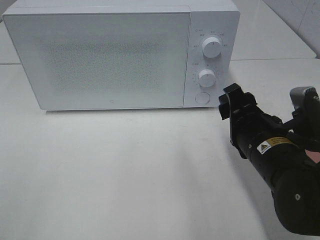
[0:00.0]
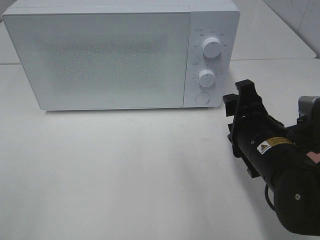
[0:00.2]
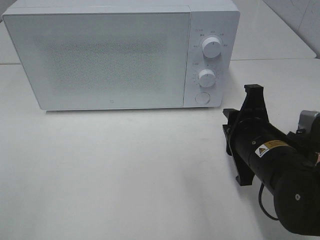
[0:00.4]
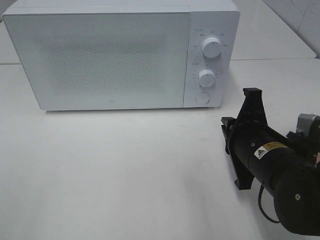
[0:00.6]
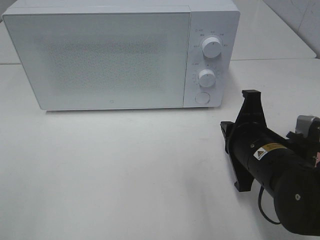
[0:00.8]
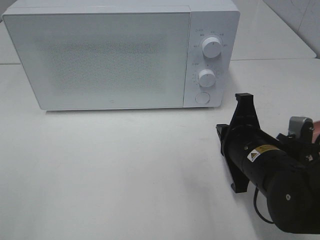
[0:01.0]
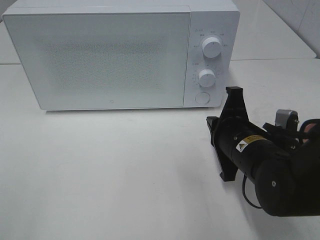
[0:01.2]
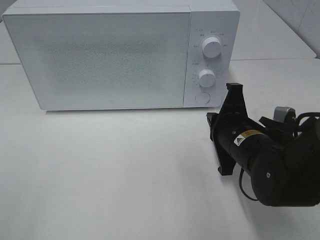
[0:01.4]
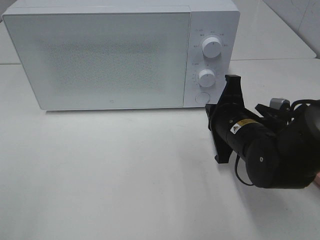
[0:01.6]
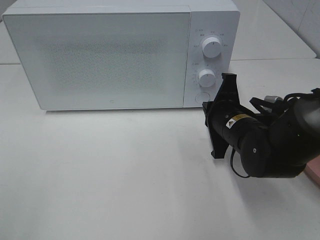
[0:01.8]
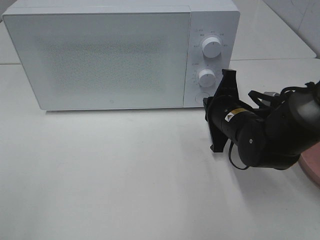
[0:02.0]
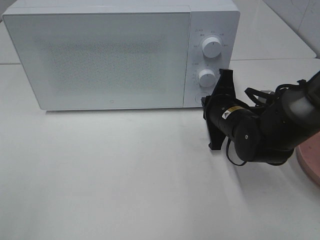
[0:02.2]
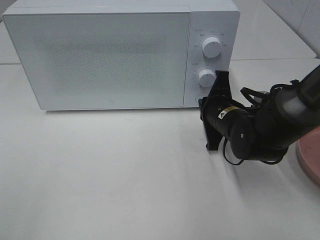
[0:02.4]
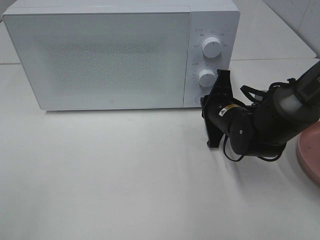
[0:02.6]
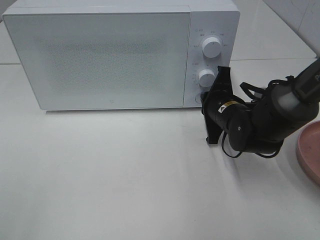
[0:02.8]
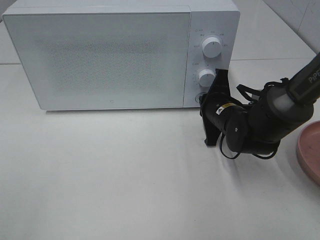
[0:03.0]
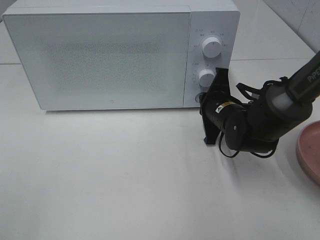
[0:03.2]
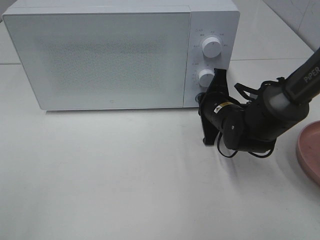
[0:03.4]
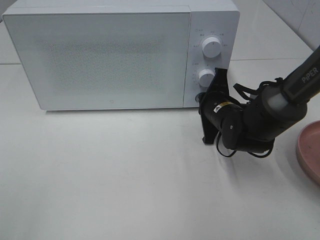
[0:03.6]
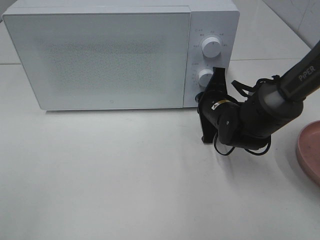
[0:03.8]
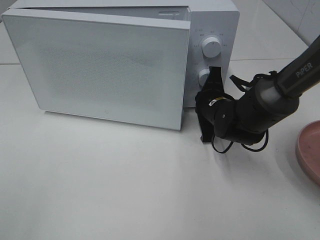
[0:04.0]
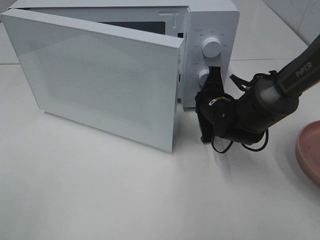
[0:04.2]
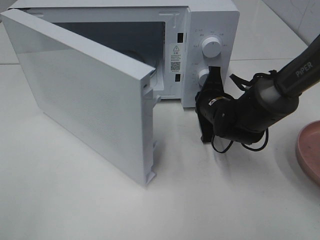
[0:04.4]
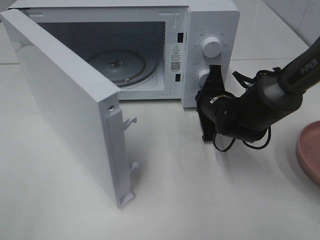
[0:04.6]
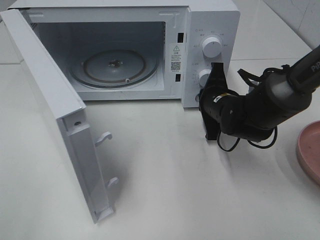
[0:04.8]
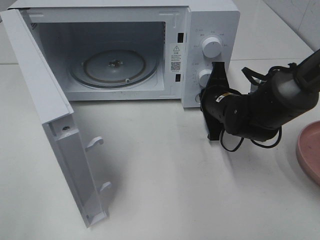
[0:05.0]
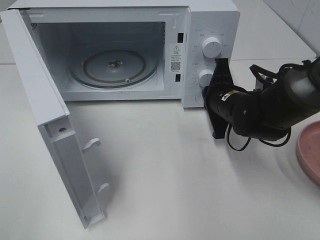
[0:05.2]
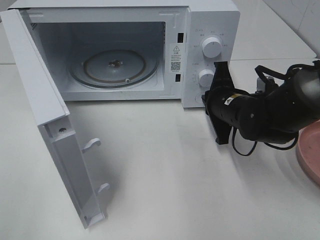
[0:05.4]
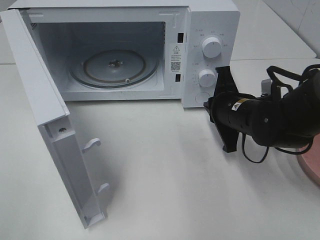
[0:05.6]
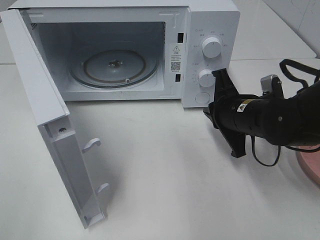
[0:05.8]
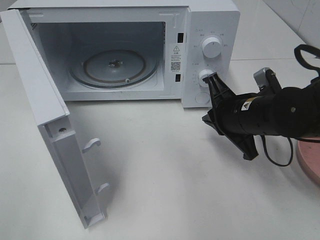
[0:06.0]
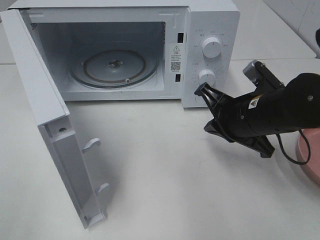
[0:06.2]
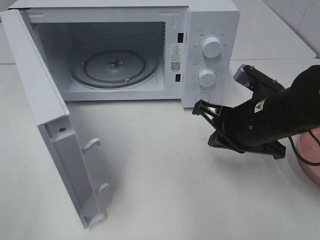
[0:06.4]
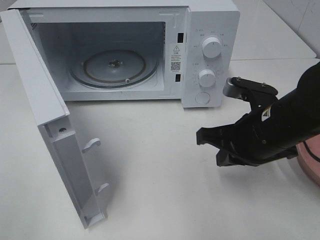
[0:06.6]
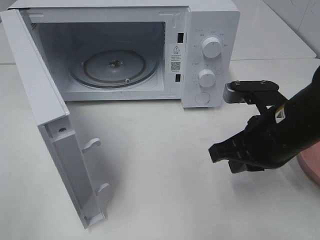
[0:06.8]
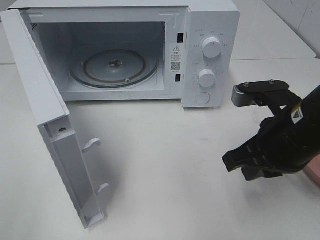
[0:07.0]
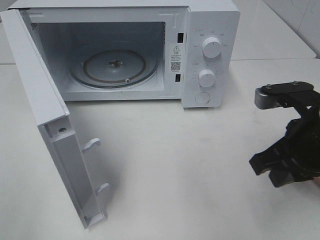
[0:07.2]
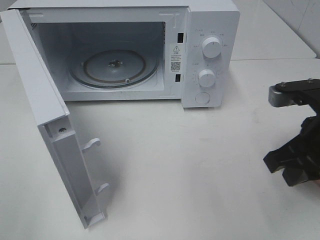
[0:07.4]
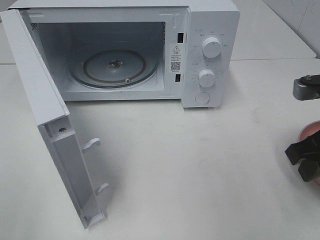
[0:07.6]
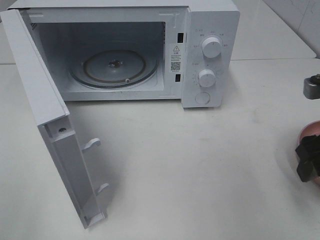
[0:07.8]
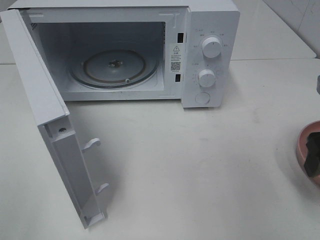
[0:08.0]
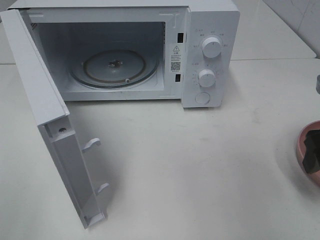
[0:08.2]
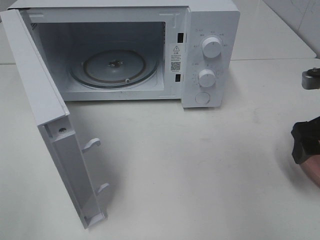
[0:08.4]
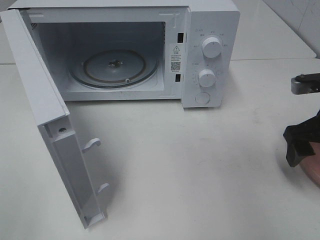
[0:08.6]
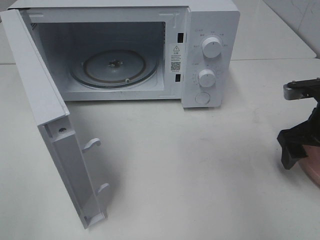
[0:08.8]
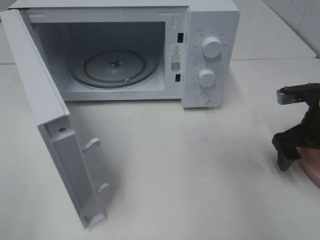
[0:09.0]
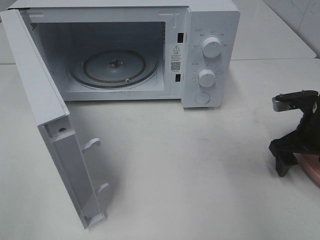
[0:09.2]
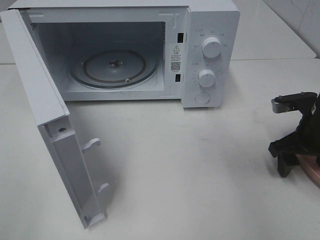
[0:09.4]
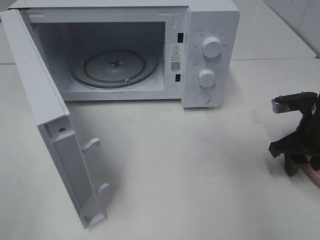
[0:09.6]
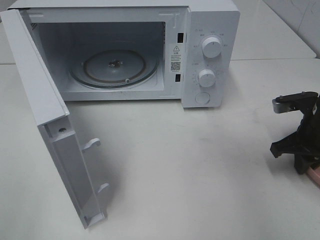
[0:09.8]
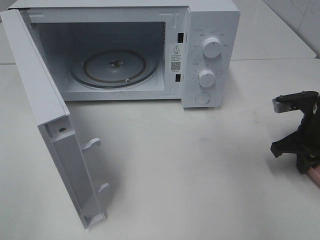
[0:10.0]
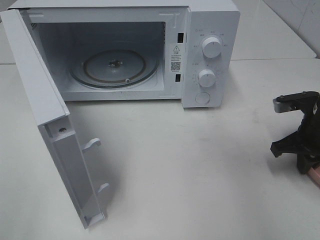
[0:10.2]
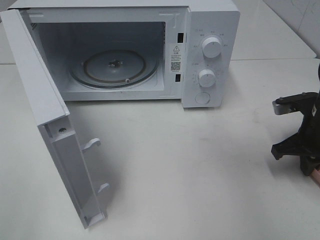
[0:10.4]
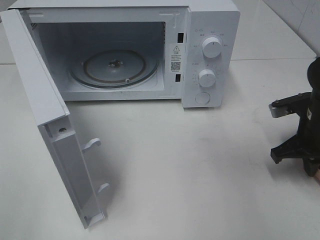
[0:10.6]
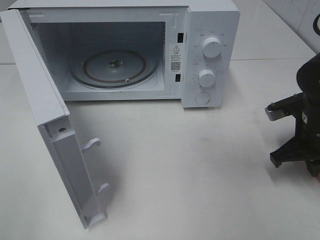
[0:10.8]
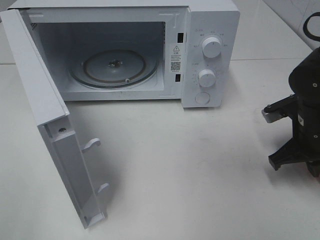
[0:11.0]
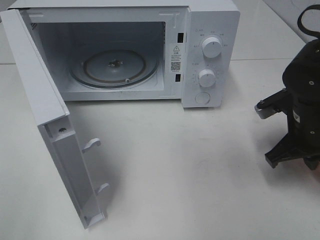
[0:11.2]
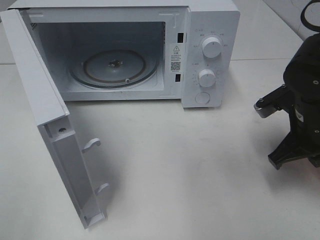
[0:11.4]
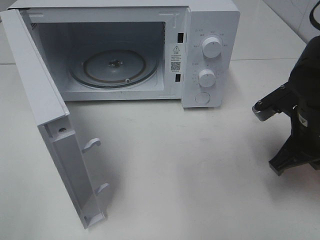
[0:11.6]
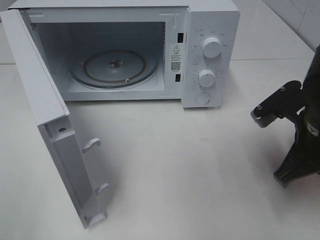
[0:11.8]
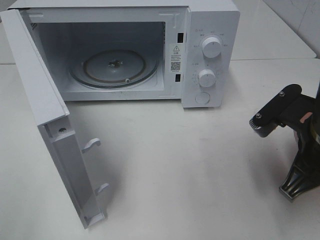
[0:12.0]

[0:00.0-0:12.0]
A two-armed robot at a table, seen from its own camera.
Task of the whole recording: Heat the burger.
Step, 0:00.0 to 0:05.2: Right hand: press the switch.
Step, 0:05.4 to 0:10.6: Right hand: grab the plate with the hamburger.
0:00.0 to 0:01.6: The right gripper shifts roughly 5 cm forward, and closes.
0:01.6 to 0:03.0: The right gripper is displaced forward by some 10 cm.
0:04.4 to 0:06.0: The right gripper heads backward and upward, covering approximately 10 cm.
0:06.0 to 0:07.6: The right gripper heads to the right, backward and upward, covering about 15 cm, and opens its fingers.
0:07.6 to 0:09.0: The right gripper moves forward and downward, approximately 10 cm, and opens.
0:09.0 to 0:10.4: The right gripper closes.
0:10.4 to 0:12.0: The right gripper heads backward, to the left and upward, covering approximately 15 cm.

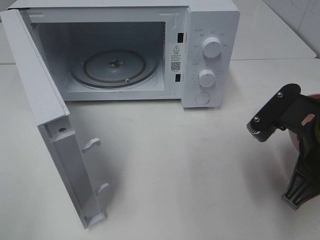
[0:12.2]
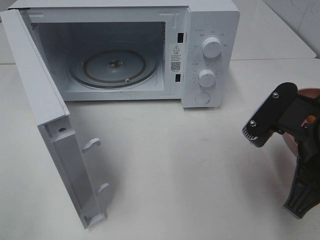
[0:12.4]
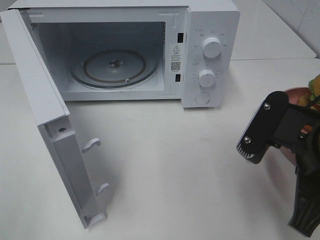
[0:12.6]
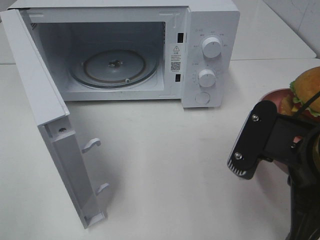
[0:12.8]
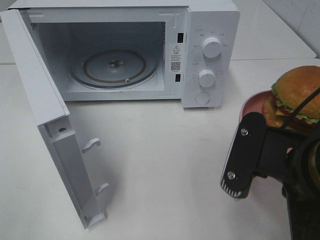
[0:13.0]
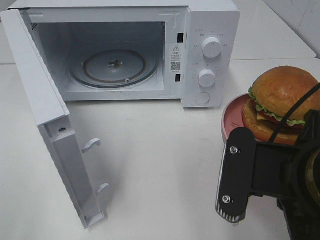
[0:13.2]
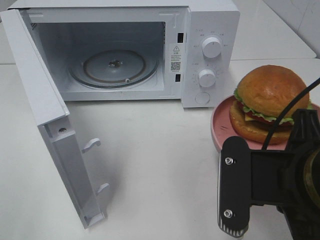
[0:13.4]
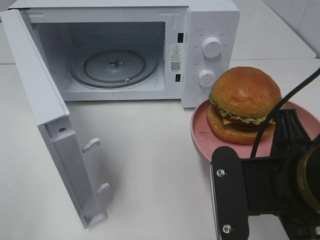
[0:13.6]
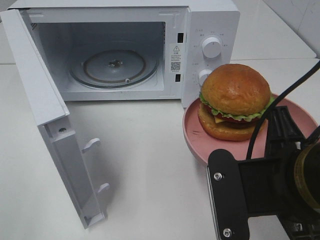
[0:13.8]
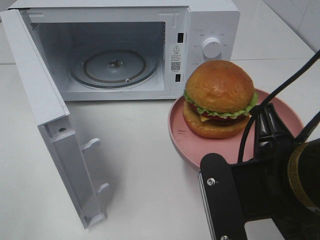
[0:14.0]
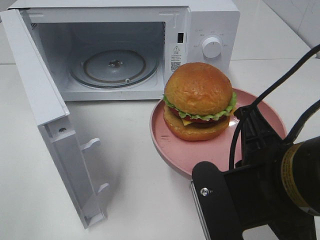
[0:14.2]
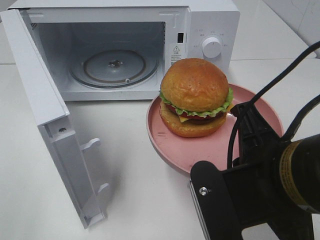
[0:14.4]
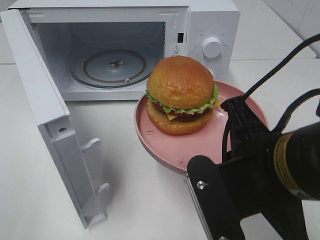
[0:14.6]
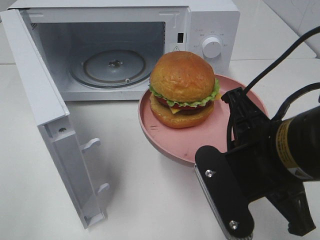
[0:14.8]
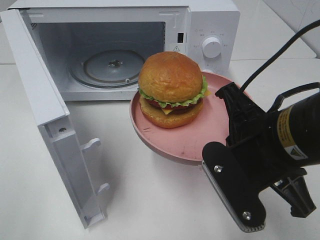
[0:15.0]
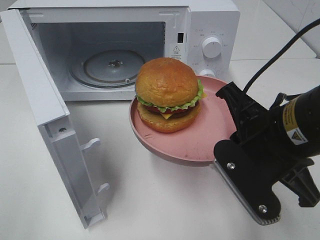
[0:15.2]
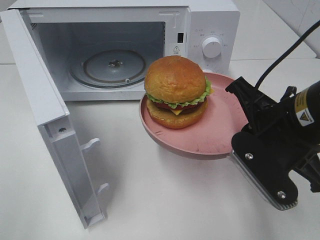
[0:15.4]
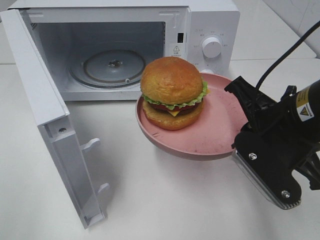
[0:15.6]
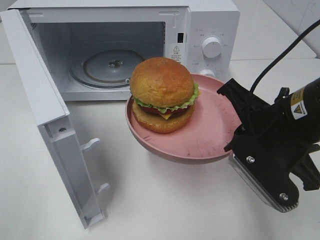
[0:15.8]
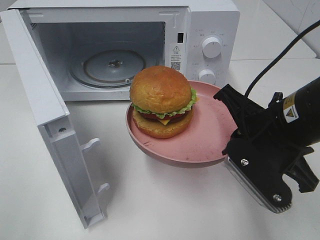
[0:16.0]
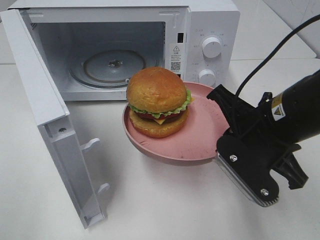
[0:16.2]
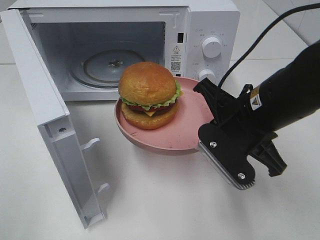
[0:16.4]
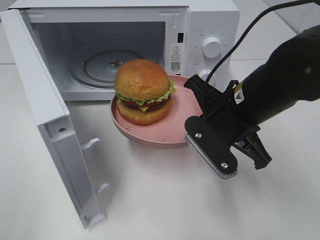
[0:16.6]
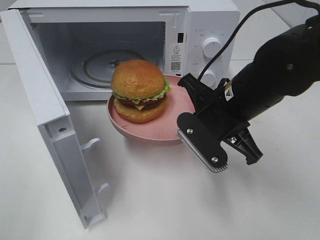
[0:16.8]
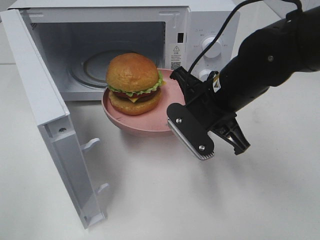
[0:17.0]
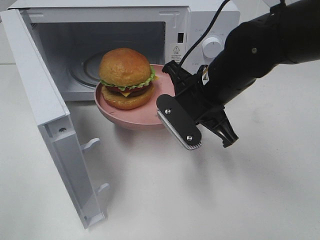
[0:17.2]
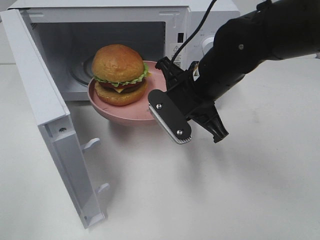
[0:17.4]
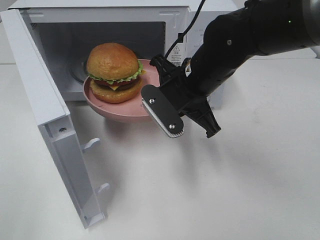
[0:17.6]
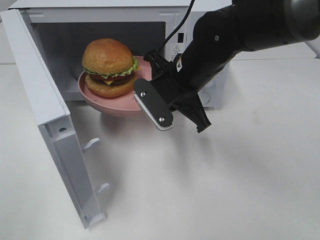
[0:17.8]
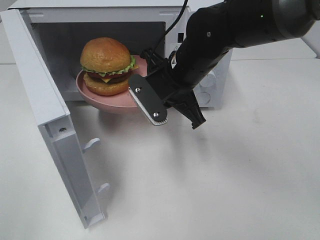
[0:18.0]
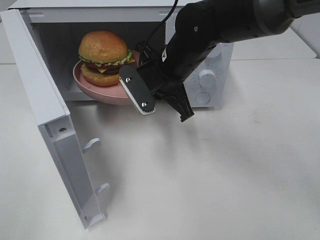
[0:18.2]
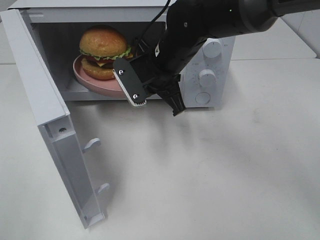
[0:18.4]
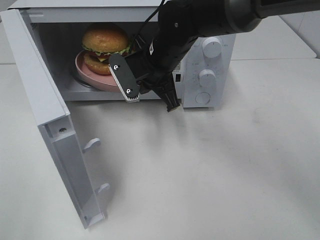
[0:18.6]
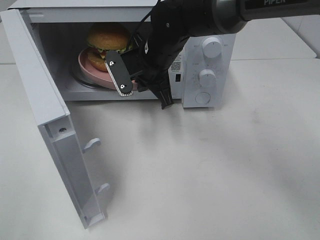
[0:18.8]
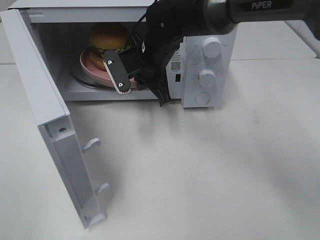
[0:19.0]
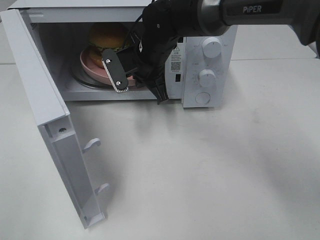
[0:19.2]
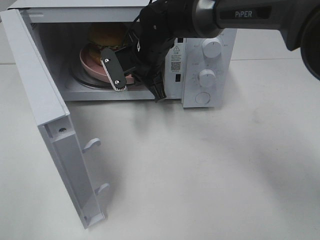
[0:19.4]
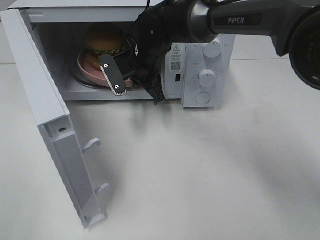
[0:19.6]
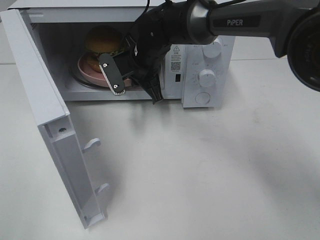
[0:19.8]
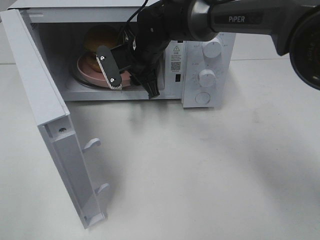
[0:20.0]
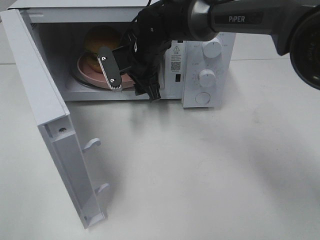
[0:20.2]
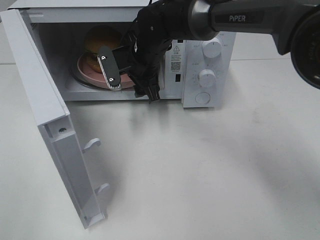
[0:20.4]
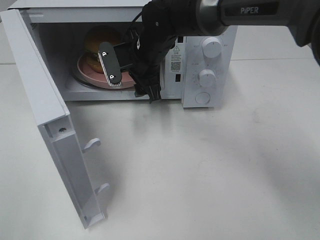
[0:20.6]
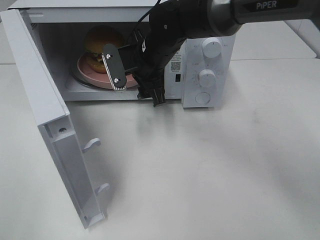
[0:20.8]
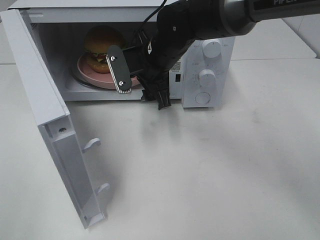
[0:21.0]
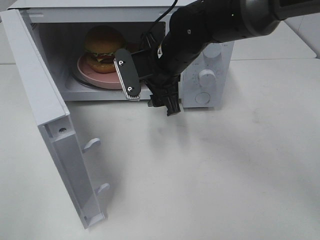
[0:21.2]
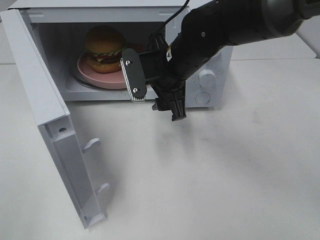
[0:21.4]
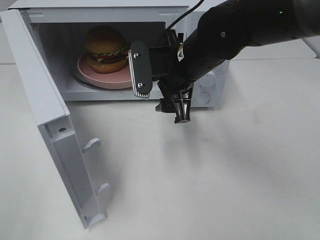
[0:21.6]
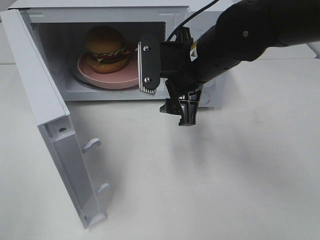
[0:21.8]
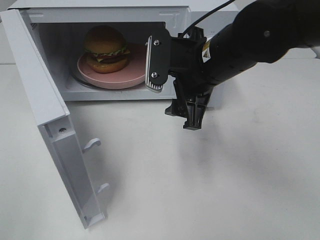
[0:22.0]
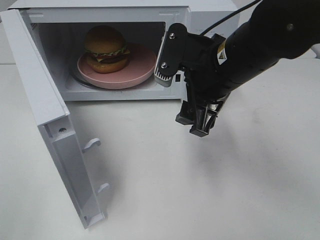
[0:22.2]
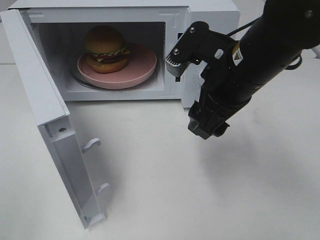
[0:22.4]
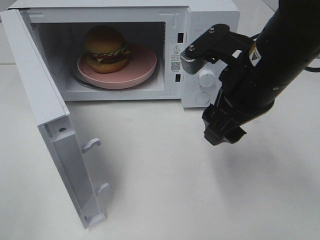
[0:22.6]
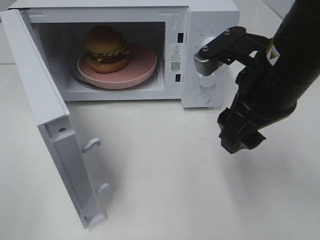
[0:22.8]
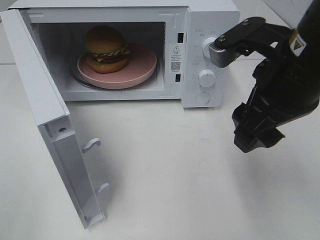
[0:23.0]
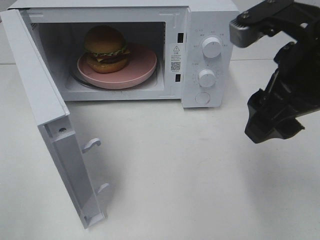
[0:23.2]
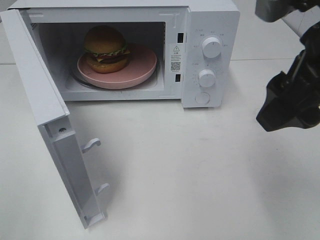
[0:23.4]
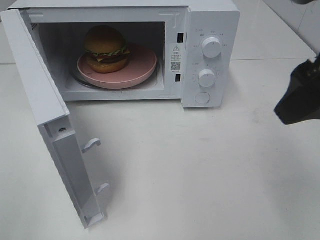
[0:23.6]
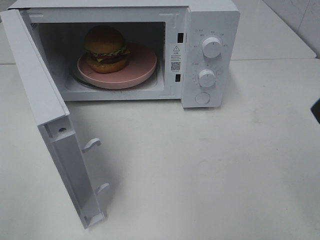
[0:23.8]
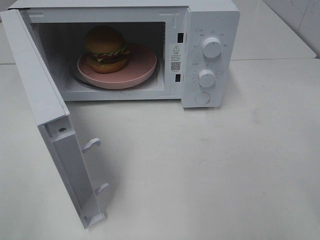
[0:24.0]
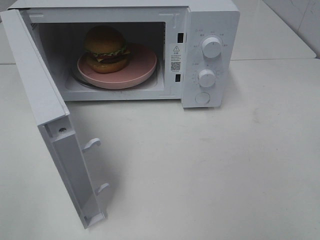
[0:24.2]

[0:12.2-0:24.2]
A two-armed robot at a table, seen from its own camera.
Task of the whole recording: Heat the burger.
Step, 0:12.2 to 0:20.4: Right hand: place the plate in the microwave.
0:12.2 to 0:13.8: The right gripper heads backward and to the left, covering approximately 10 cm.
0:13.8 to 0:15.2: The right gripper goes approximately 5 cm forward.
0:15.2 to 0:16.6: The right gripper moves forward, roughly 5 cm.
0:16.6 to 0:18.2: The right gripper heads forward and to the left, covering some 15 cm.
0:18.2 to 0:19.8: The right gripper shifts about 10 cm forward and to the left.
0:19.8 to 0:21.2: The right gripper moves backward, roughly 5 cm, and opens its fingers.
0:21.2 to 0:22.6: The right gripper travels backward, to the right and upward by approximately 15 cm.
0:22.6 to 0:24.2: The right gripper is displaced backward, to the right and upward by approximately 20 cm.
